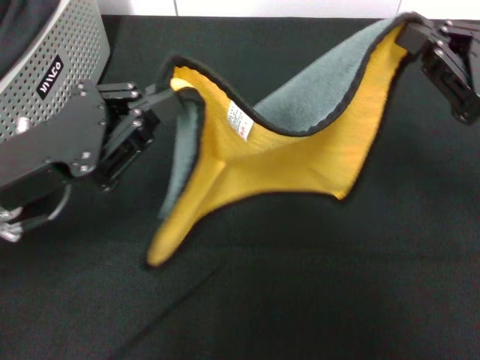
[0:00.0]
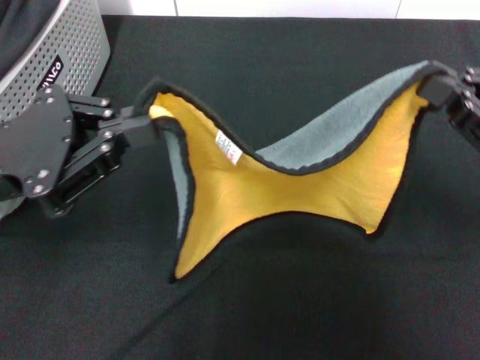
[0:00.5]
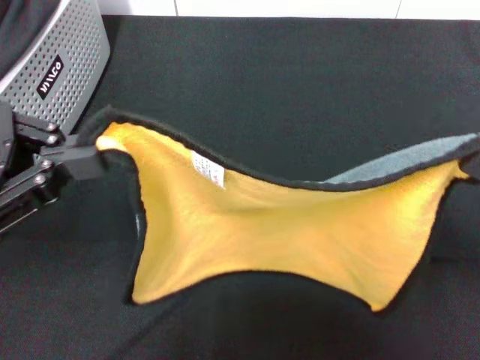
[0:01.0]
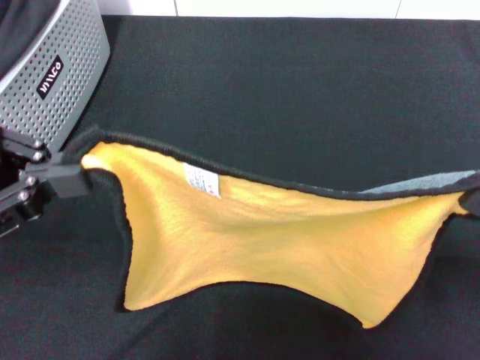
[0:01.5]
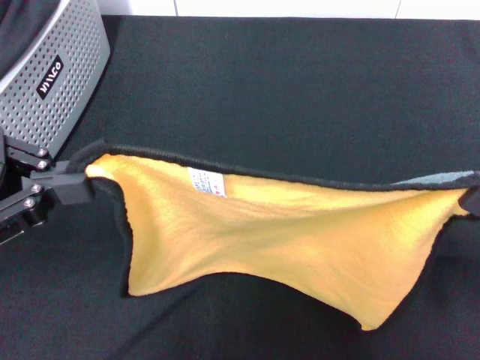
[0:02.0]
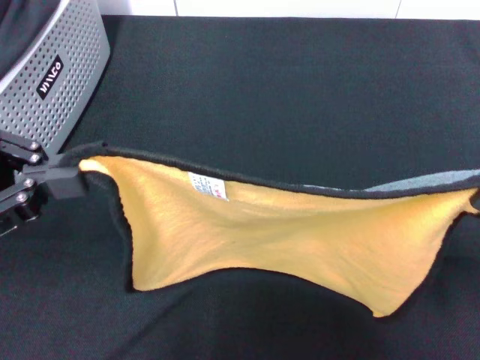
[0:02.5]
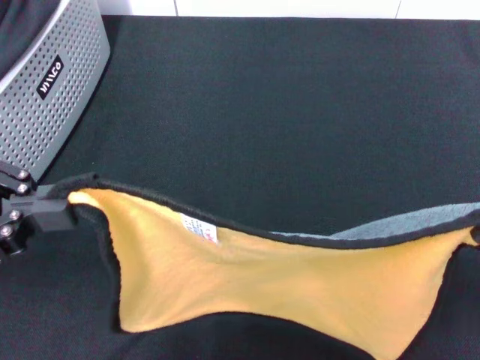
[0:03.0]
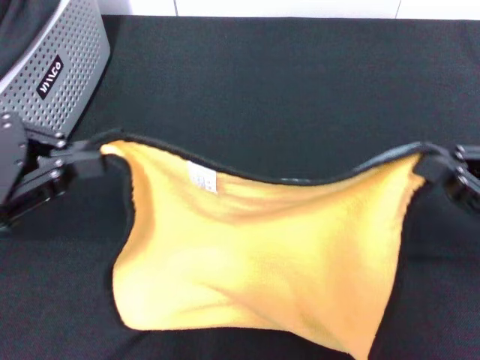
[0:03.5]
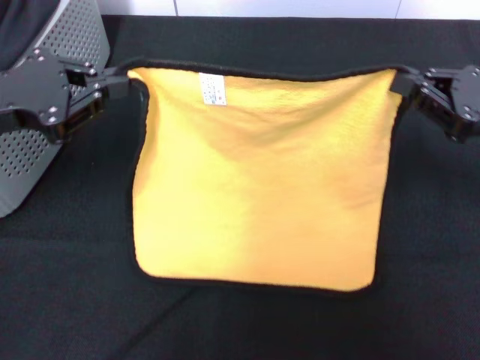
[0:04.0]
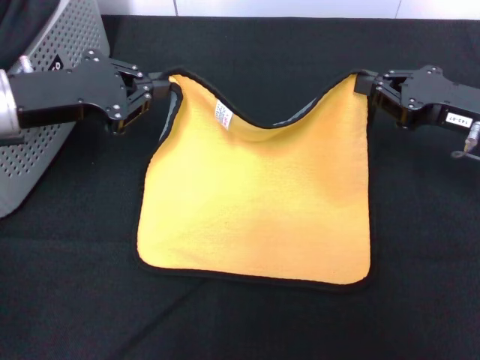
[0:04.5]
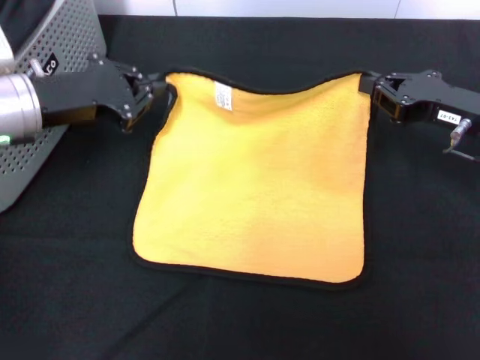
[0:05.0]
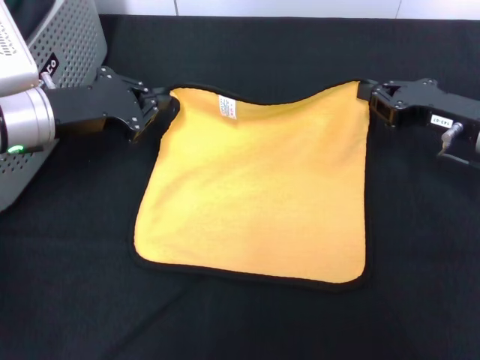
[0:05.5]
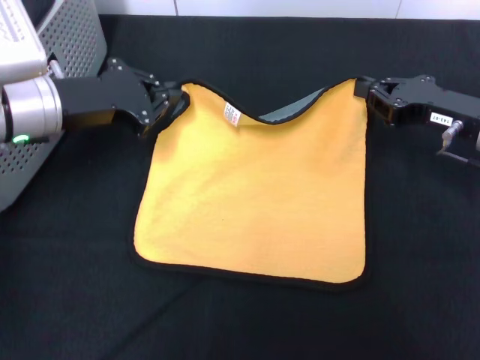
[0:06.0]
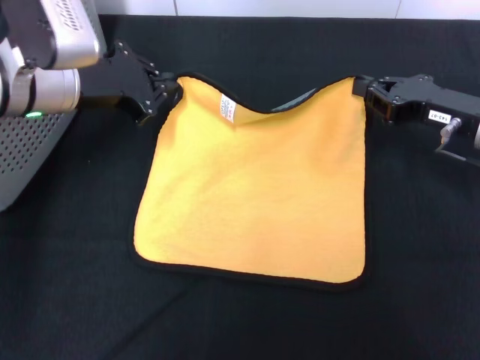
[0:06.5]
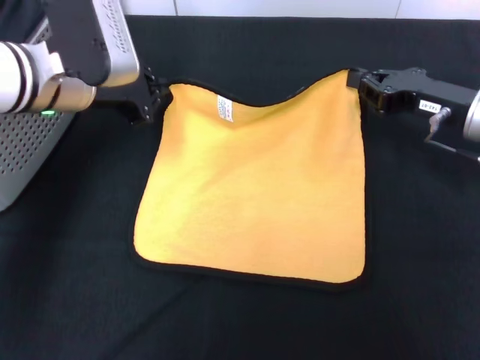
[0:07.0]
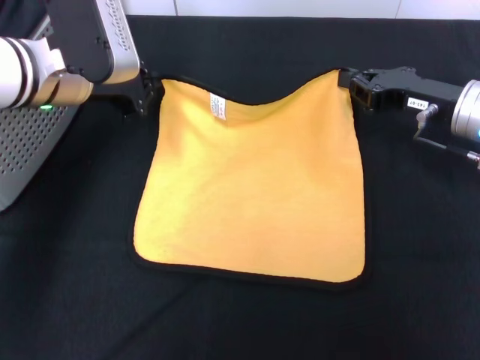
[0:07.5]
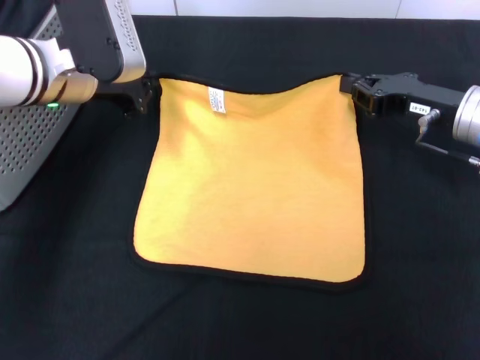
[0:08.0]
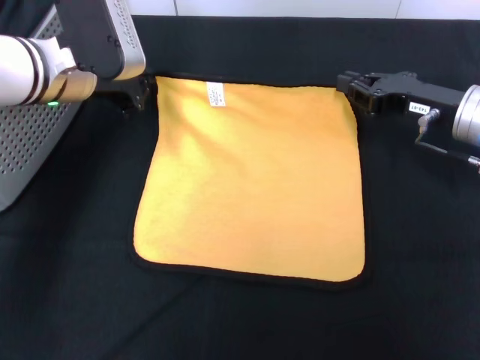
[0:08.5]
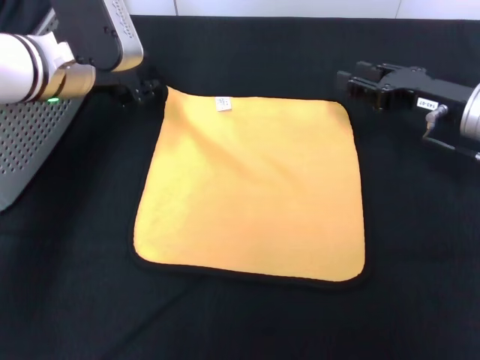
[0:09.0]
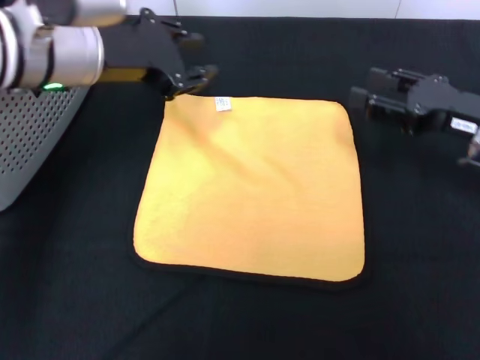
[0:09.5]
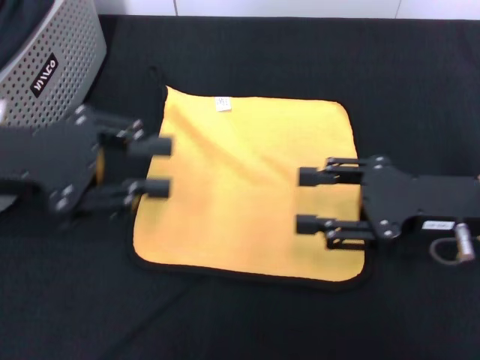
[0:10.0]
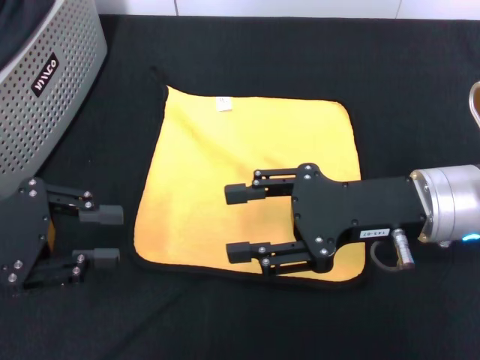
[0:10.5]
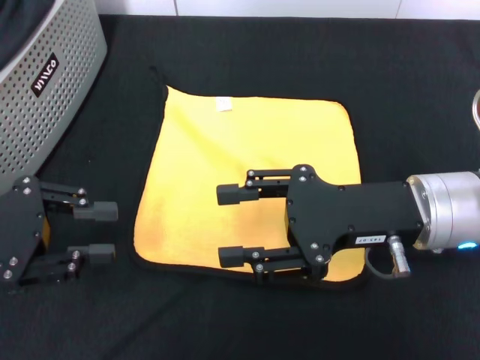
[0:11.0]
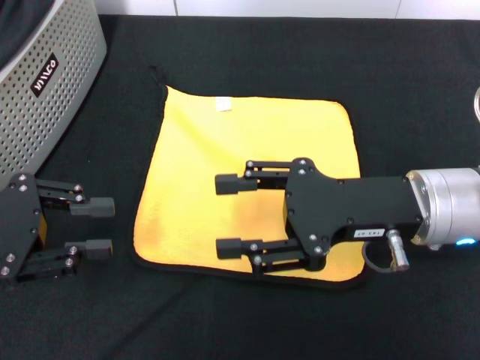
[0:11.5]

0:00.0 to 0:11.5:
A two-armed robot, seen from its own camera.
Task of the whole recording: pick up the towel from the storage box and lay it flat on the black tablecloth.
Step, 0:00.0 to 0:08.5: Spread the towel flat with the right gripper.
0:00.0 to 0:02.0: The right gripper shifts roughly 10 cm backward, while the left gripper moves to the left and upward, roughly 10 cm.
0:02.0 to 0:04.0: Both grippers move forward, roughly 10 cm.
0:04.0 to 0:06.0: The right gripper goes approximately 5 cm forward. The left gripper shifts about 10 cm to the right and forward.
0:06.0 to 0:07.5: The left gripper shifts by some 5 cm.
0:07.5 to 0:09.5: The left gripper opens. Meanwhile the right gripper moves some 5 cm, and opens its fingers.
0:09.5 to 0:11.5: The right gripper moves to the left and backward, about 15 cm; the left gripper travels to the left, backward and downward by approximately 20 cm.
